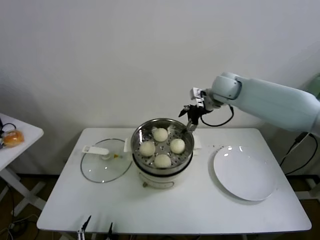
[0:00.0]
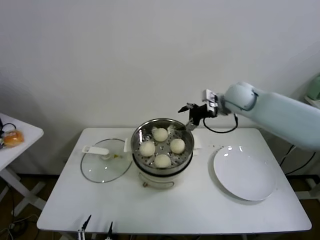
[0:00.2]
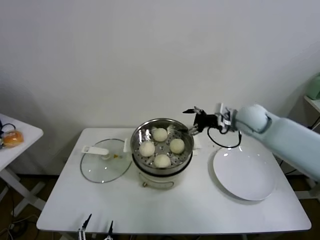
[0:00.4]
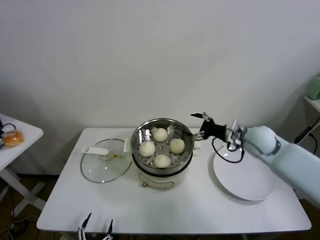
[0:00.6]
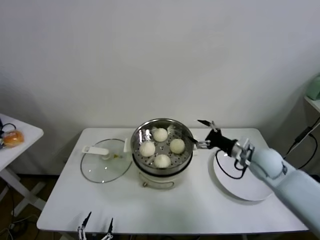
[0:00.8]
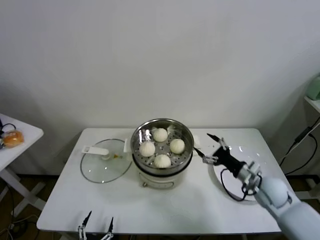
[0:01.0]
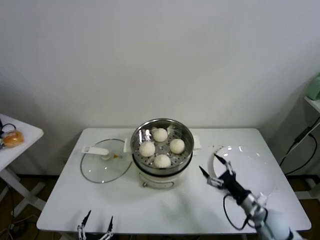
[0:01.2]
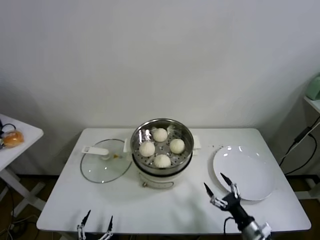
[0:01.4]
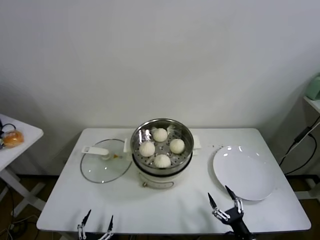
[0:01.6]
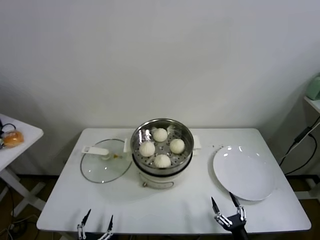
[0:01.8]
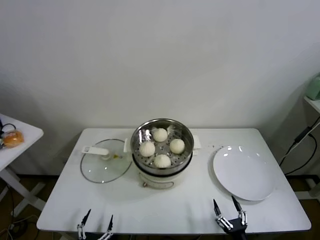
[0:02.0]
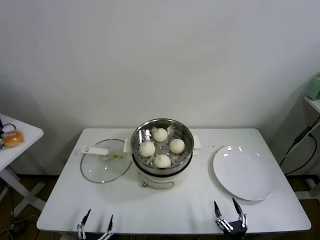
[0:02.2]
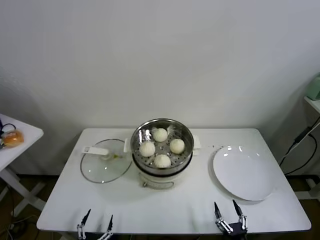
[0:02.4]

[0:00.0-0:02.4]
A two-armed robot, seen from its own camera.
Task of the whole recording: take steamed baozi put them in steamer.
0:00.0 to 0:01.2: The right gripper travels downward, backward and to the right by roughly 40 cm.
0:01.2 to 0:02.4: The right gripper heads backward and downward, covering approximately 25 cm.

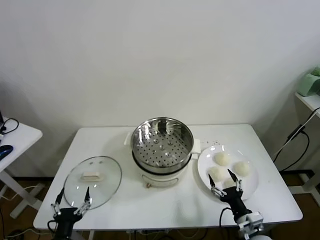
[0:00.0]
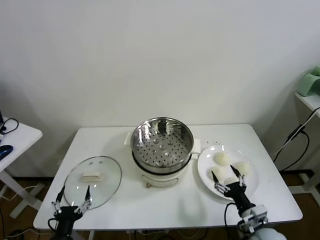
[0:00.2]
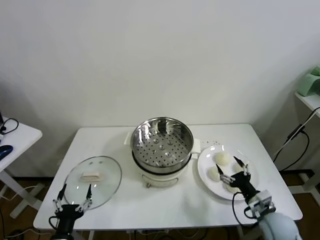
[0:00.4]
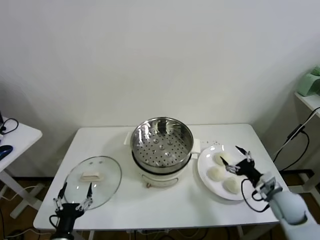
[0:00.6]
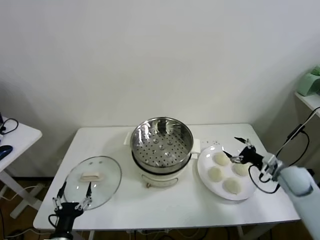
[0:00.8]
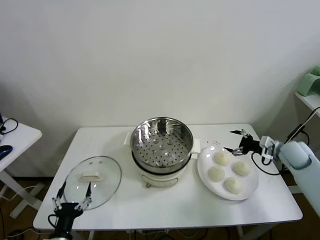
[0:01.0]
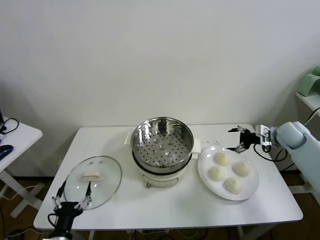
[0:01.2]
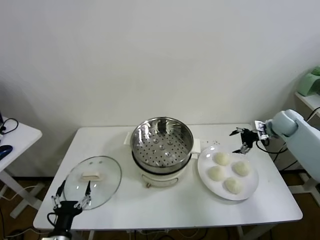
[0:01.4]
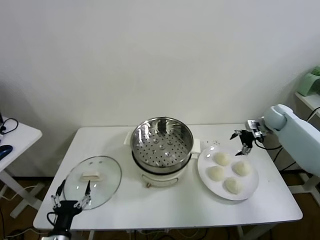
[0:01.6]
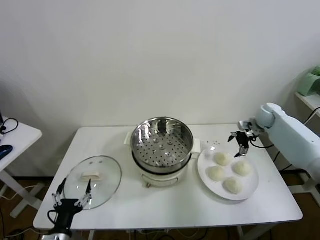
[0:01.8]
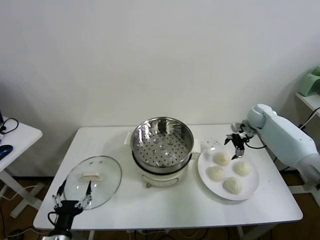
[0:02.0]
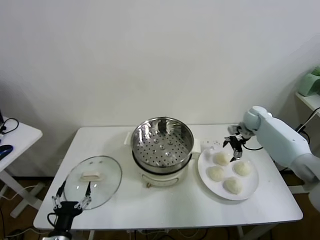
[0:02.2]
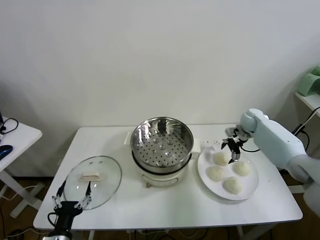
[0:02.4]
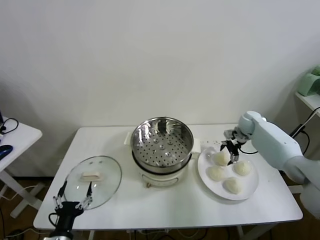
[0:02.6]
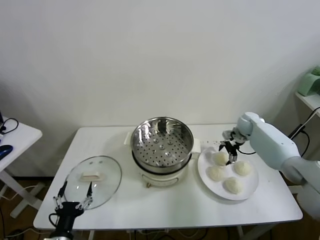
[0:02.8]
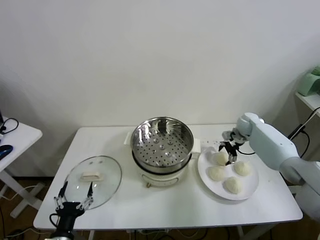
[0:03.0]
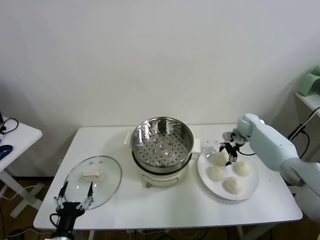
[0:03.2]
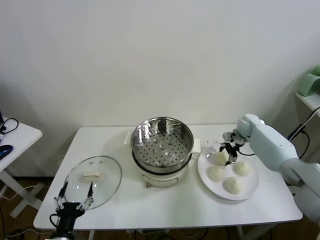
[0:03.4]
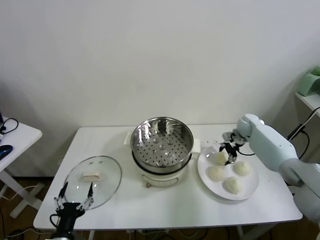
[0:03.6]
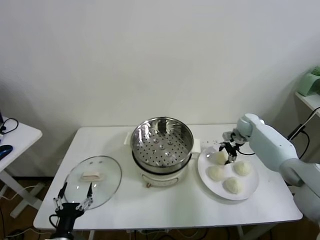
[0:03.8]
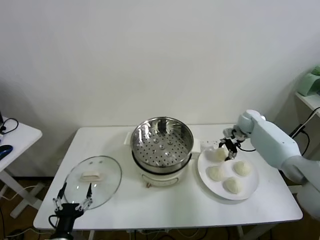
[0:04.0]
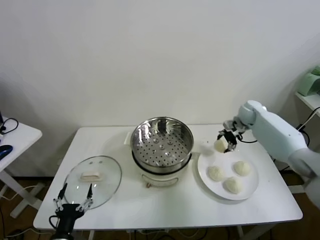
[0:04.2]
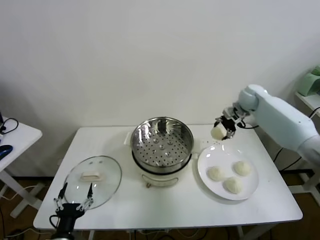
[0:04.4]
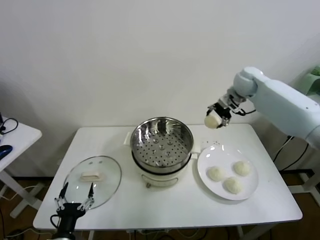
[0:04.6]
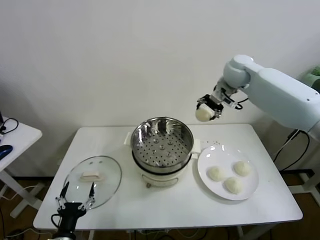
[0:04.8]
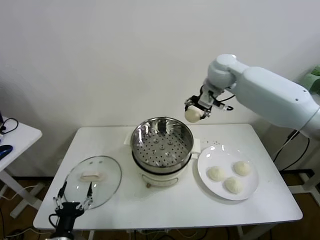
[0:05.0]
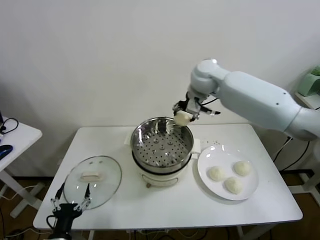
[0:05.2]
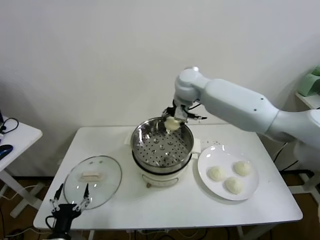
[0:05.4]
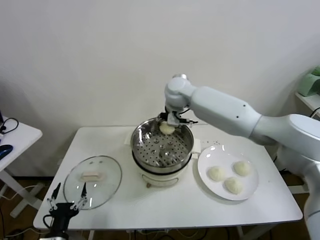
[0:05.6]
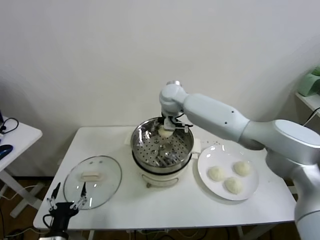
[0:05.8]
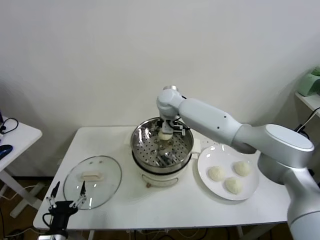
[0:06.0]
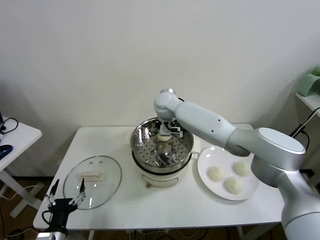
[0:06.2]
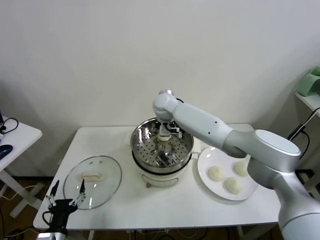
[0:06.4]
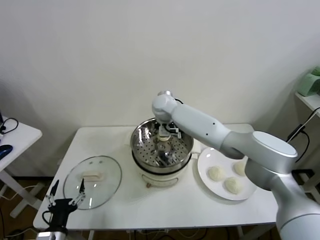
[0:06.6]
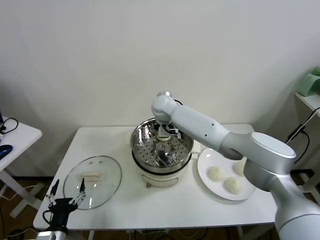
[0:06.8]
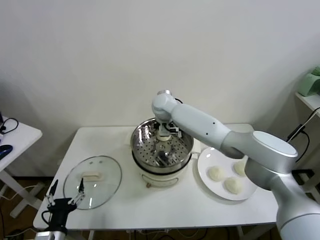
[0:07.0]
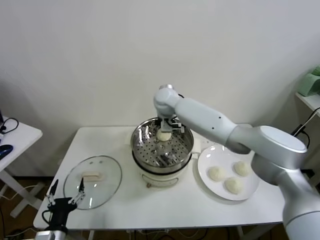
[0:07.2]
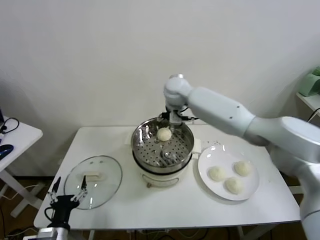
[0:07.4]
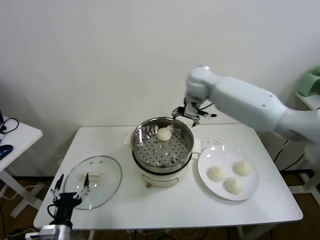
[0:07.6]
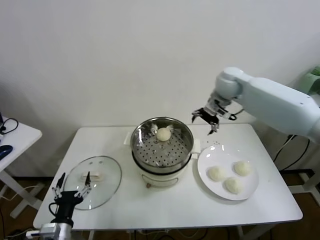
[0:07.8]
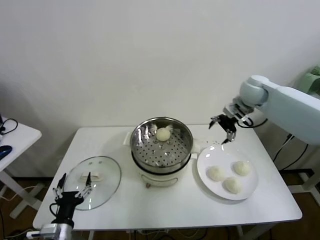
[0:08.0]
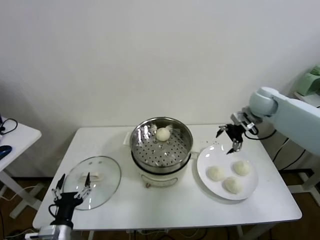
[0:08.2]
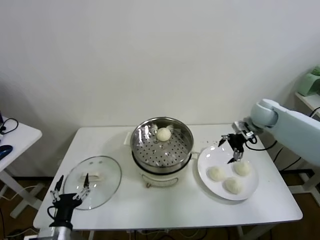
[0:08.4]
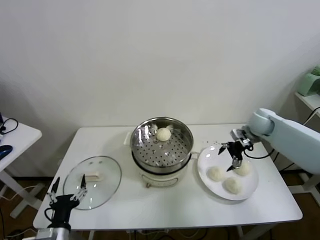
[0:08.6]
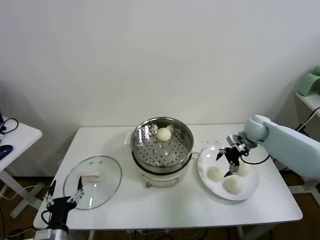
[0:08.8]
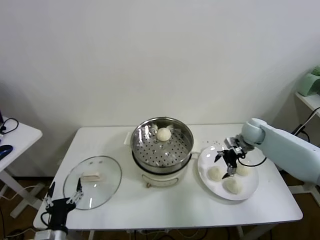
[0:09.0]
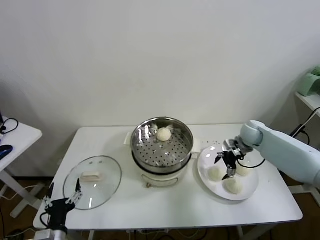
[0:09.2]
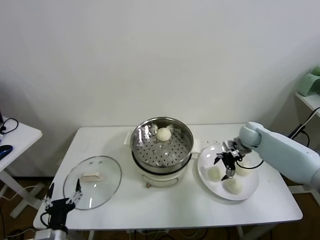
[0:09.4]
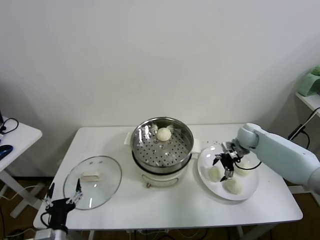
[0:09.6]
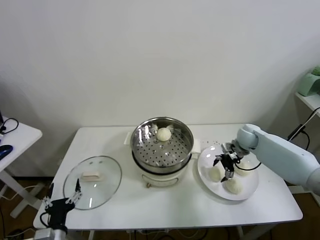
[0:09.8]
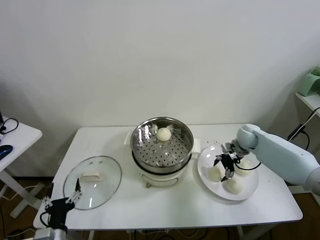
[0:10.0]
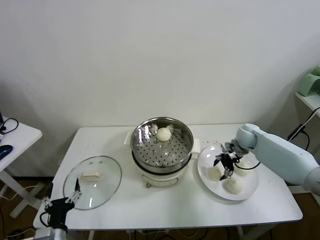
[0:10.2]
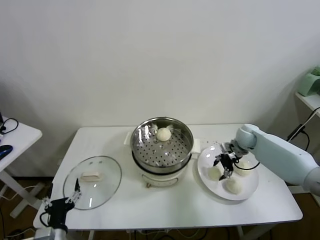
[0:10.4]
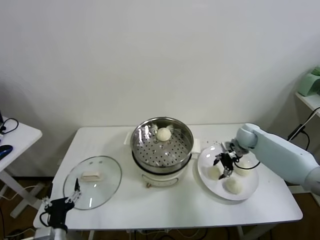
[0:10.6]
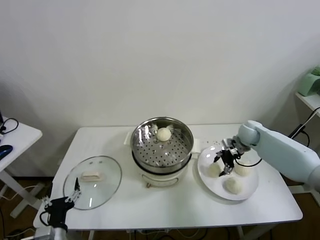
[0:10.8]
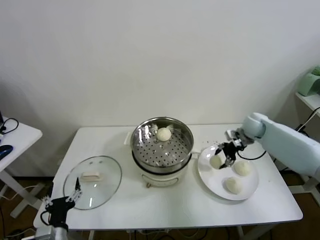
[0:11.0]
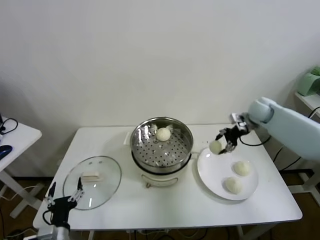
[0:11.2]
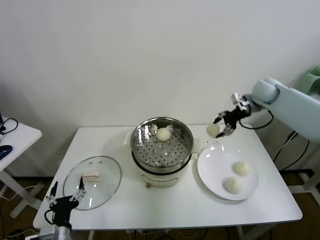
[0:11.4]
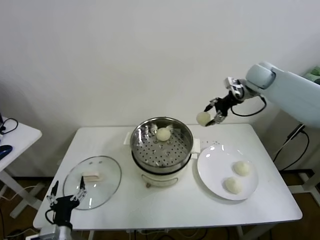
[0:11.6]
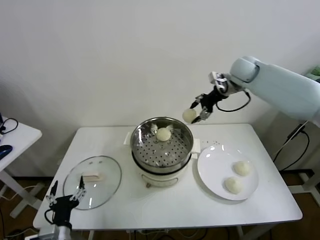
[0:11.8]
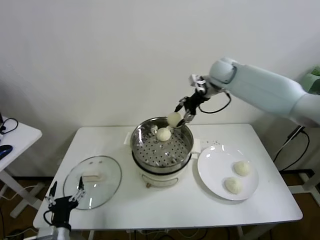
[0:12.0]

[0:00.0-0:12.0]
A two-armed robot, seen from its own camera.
Task of the whole recording: take steamed baozi put them in steamer.
Step, 0:00.0 to 0:03.2: Grasp the baozi in the plate with right gripper.
Step, 0:03.4 to 0:07.0: Place the baozi on the steamer with right gripper.
Step, 0:07.2 to 0:10.0: Grasp the baozi in the plate with right gripper.
0:01.6 to 0:03.0: The right gripper goes approximately 10 cm downward and to the left.
0:03.0 to 0:04.4: The right gripper shifts roughly 15 cm upward, and closes its fingers.
0:04.4 to 0:06.0: The right gripper shifts approximately 30 cm to the left.
0:06.0 to 0:07.6: The right gripper travels to the right and upward by about 15 cm, and opens its fingers.
0:07.6 to 0:09.0: The right gripper heads downward and to the right, covering roughly 30 cm.
0:09.0 to 0:10.4: The right gripper closes up.
0:10.4 to 0:12.0: The right gripper moves upward and to the left, roughly 30 cm.

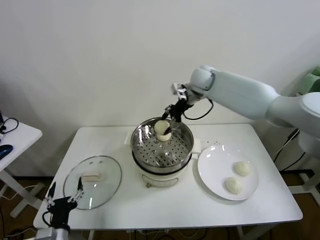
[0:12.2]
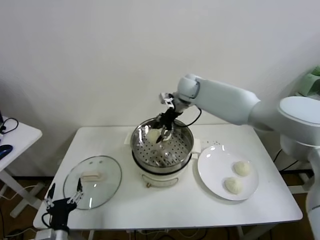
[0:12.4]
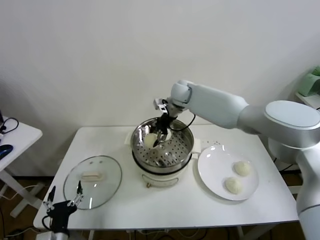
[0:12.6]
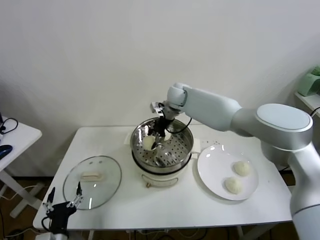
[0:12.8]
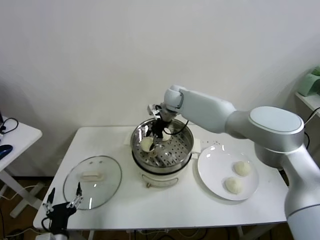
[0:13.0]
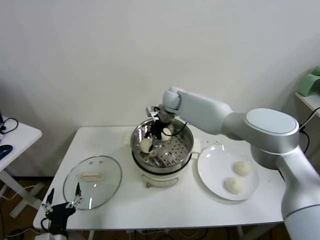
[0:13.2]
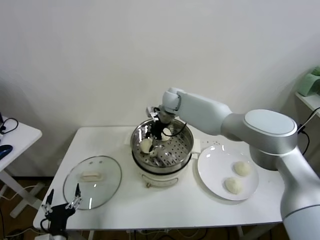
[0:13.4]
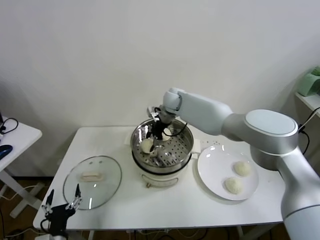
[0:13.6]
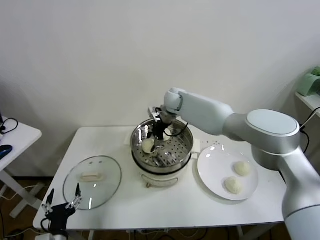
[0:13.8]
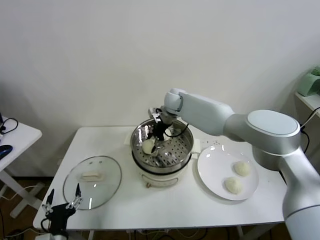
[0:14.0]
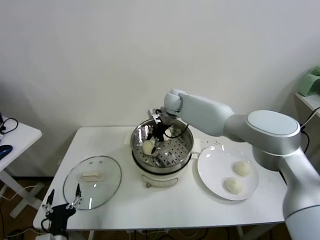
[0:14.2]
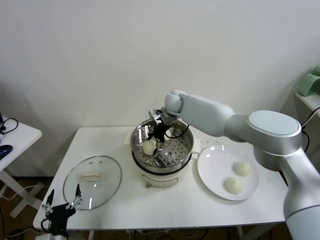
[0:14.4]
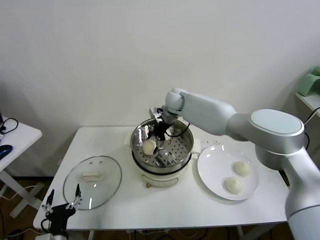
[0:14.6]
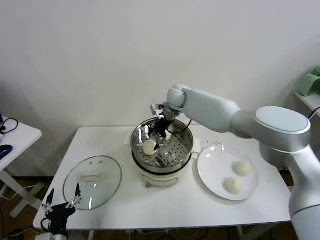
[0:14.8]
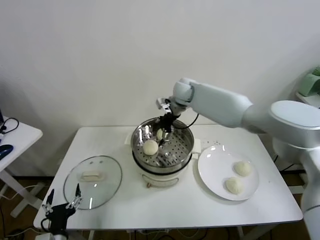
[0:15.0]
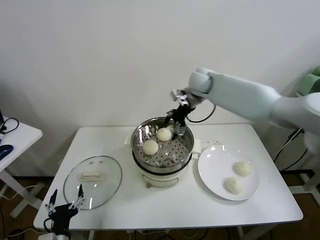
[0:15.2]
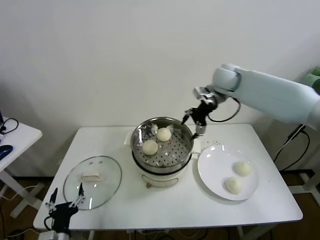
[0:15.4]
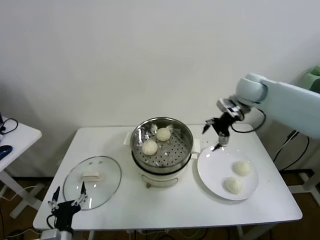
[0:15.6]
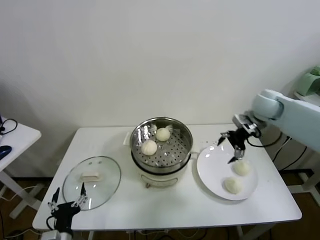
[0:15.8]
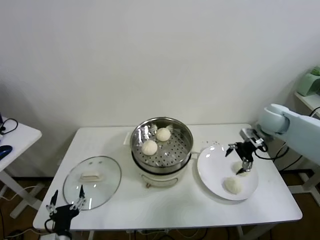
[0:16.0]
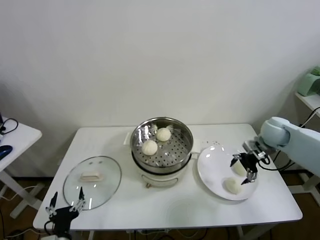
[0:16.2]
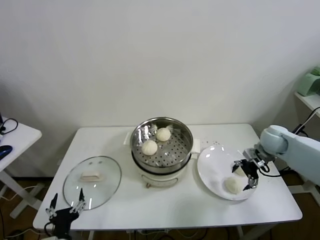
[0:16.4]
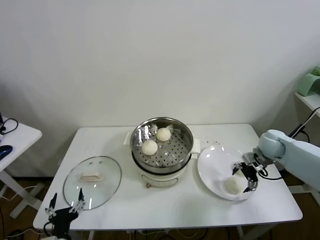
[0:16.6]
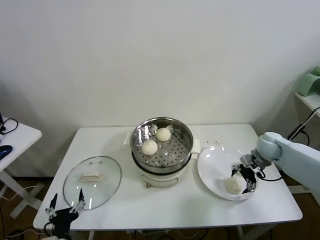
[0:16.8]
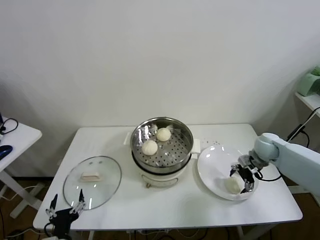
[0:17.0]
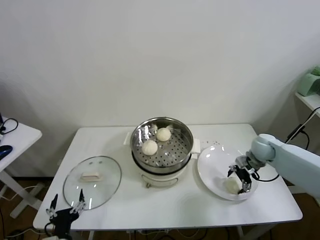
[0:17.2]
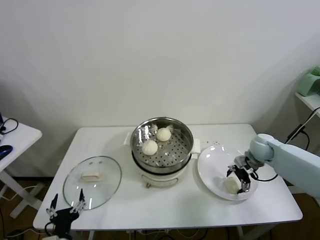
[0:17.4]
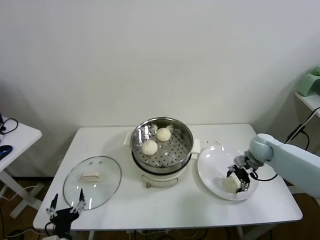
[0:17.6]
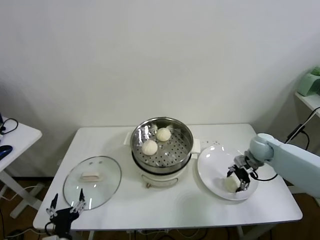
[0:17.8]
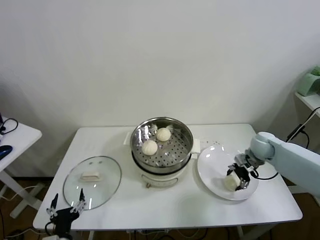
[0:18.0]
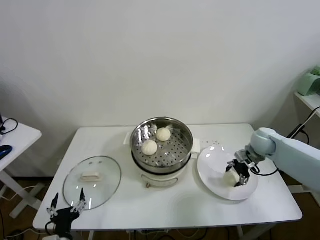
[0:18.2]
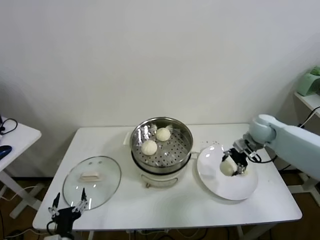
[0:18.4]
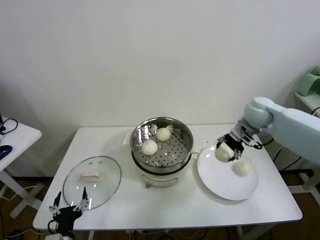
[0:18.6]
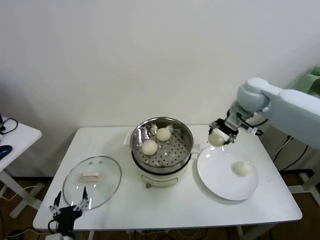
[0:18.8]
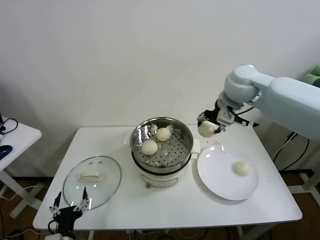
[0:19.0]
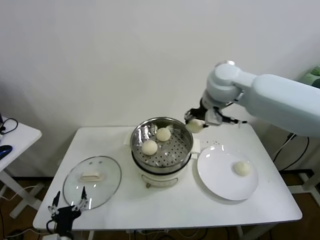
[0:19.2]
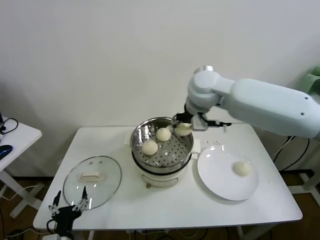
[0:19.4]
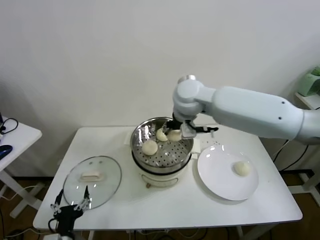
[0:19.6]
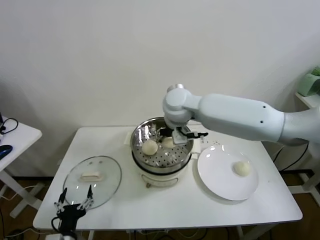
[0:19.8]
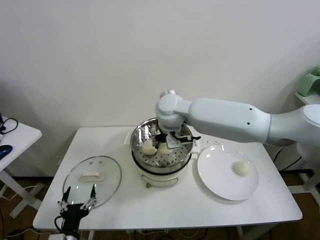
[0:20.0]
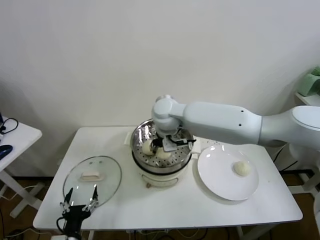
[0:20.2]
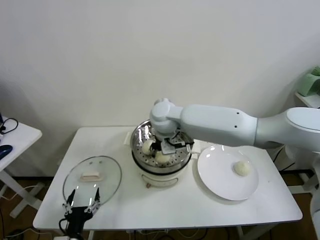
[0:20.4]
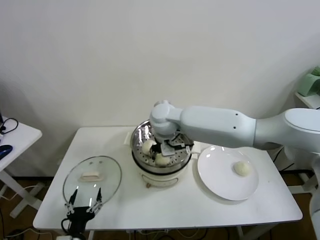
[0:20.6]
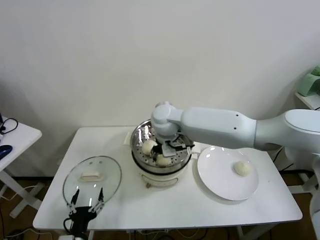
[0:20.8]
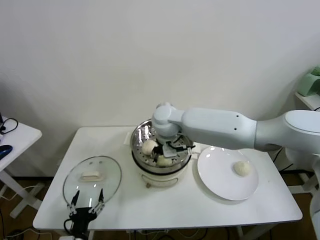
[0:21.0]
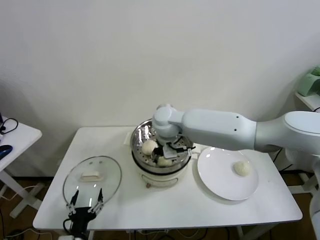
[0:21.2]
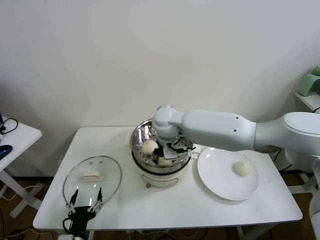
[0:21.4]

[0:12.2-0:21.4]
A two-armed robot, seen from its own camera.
Task of the whole recording: take steamed baozi put them in steamer.
Step, 0:12.2 to 0:14.4: Place the baozi on the steamer with right gripper.
Step, 0:14.8 to 0:17.4: Grasp the baozi in the plate with right gripper.
0:12.2 to 0:13.8: The right gripper travels downward and to the left by approximately 10 cm.
0:13.8 to 0:15.2: The right gripper travels to the right and upward by approximately 15 cm, and opens its fingers.
0:15.2 to 0:16.8: The right gripper is displaced to the right, downward and backward by some 35 cm.
0:16.8 to 0:18.4: The right gripper goes approximately 5 cm upward, and closes its fingers.
0:18.4 to 0:19.8: The right gripper goes approximately 35 cm to the left and upward.
0:19.8 to 0:21.4: The right gripper travels downward by some 5 cm.
